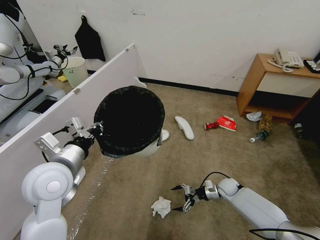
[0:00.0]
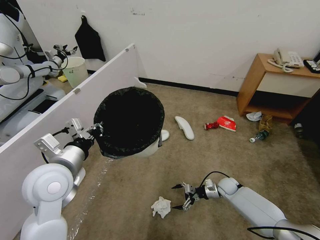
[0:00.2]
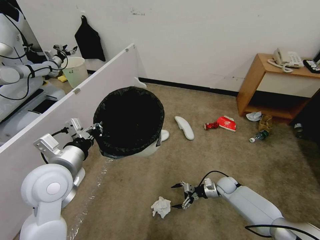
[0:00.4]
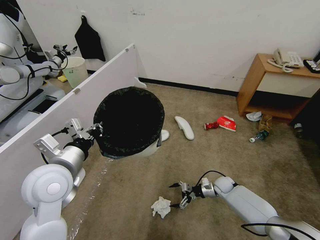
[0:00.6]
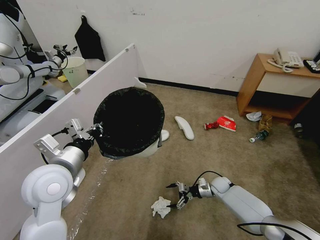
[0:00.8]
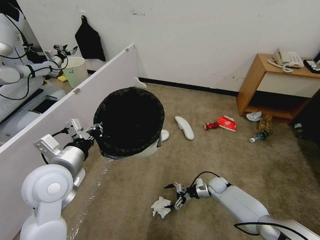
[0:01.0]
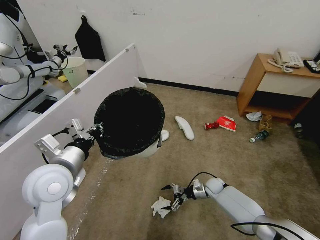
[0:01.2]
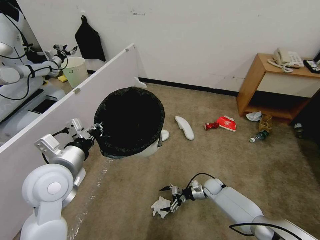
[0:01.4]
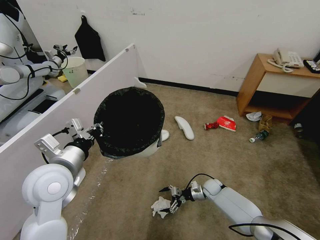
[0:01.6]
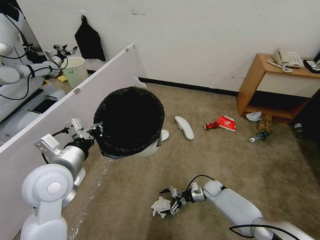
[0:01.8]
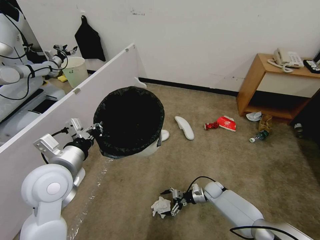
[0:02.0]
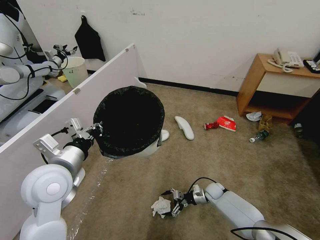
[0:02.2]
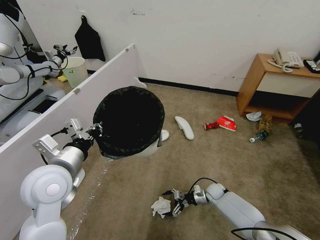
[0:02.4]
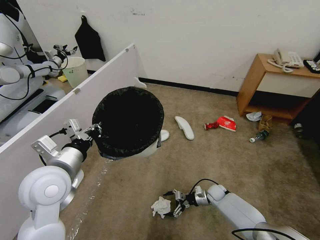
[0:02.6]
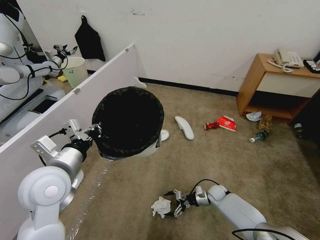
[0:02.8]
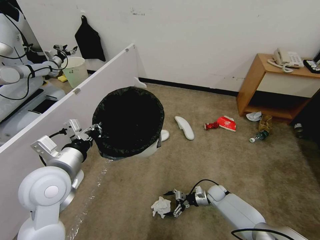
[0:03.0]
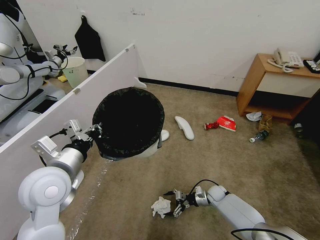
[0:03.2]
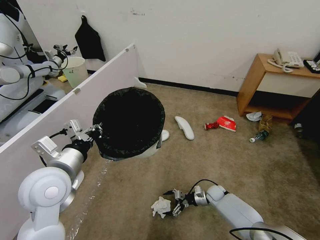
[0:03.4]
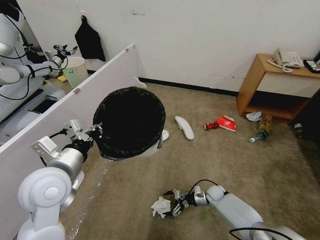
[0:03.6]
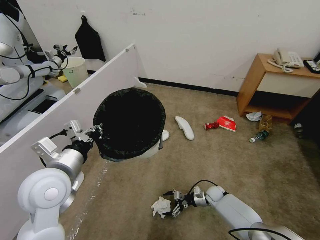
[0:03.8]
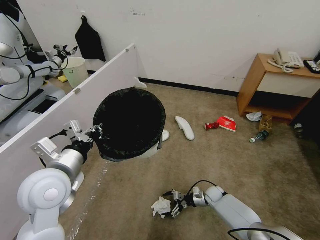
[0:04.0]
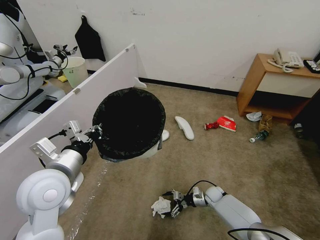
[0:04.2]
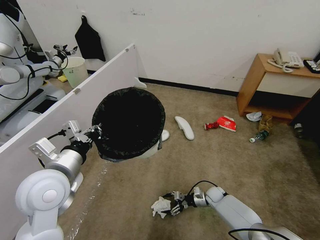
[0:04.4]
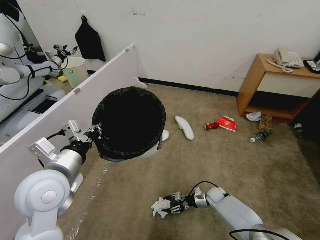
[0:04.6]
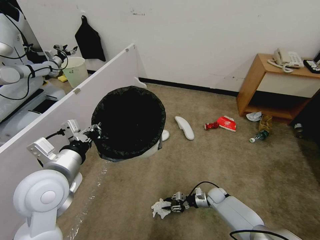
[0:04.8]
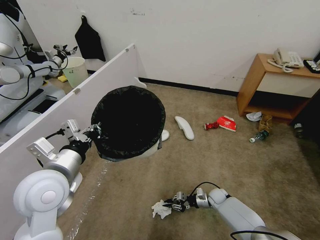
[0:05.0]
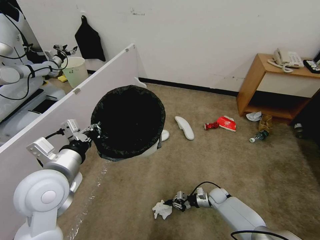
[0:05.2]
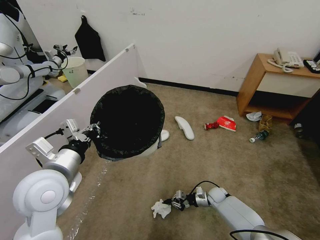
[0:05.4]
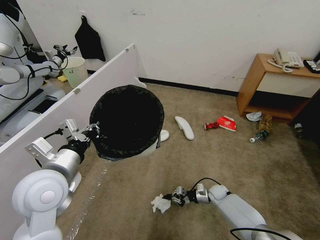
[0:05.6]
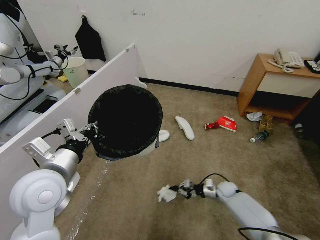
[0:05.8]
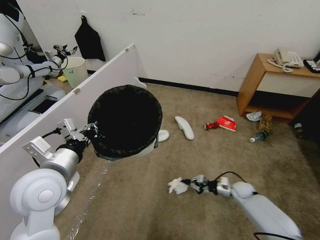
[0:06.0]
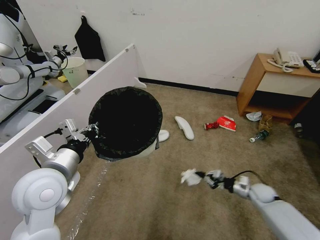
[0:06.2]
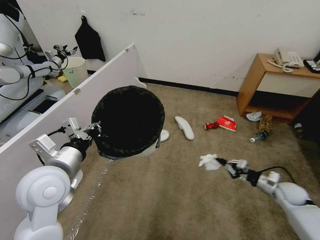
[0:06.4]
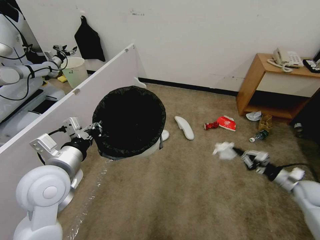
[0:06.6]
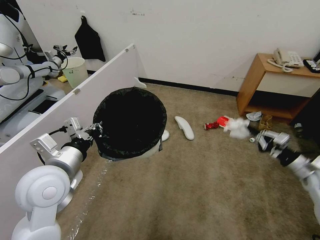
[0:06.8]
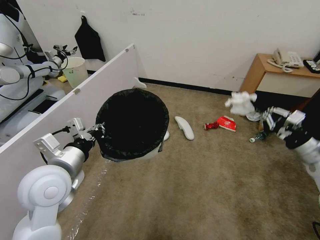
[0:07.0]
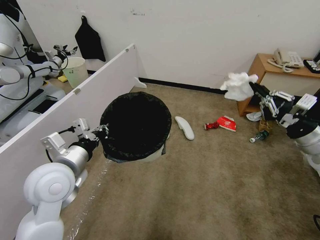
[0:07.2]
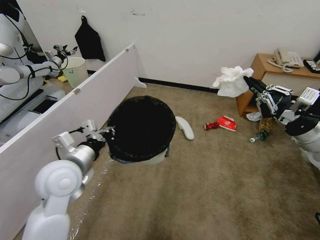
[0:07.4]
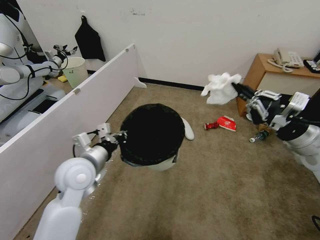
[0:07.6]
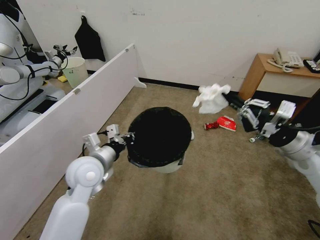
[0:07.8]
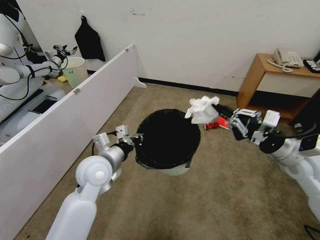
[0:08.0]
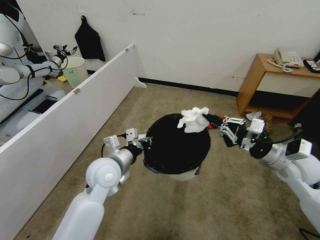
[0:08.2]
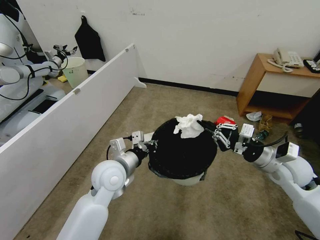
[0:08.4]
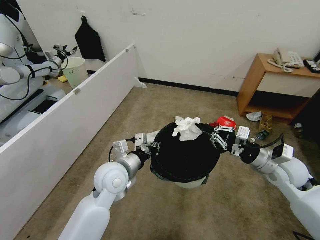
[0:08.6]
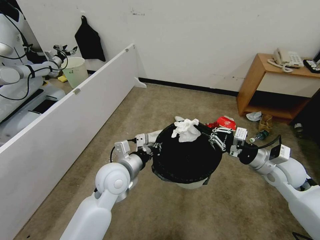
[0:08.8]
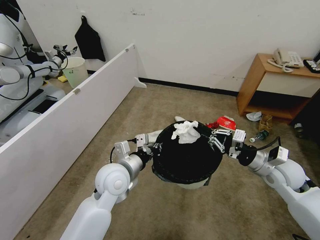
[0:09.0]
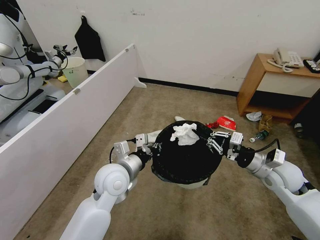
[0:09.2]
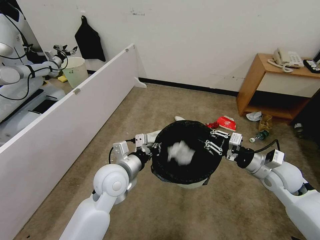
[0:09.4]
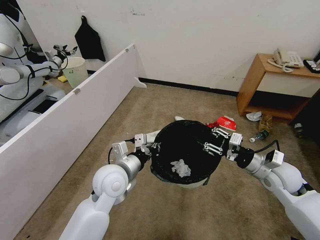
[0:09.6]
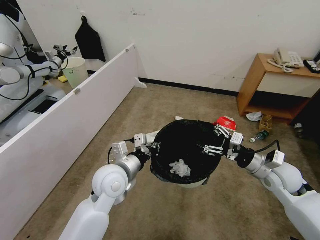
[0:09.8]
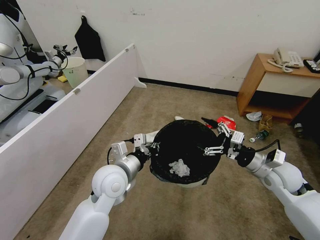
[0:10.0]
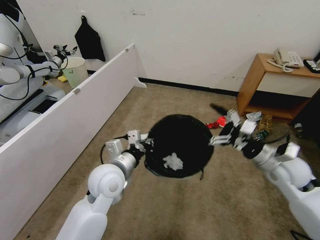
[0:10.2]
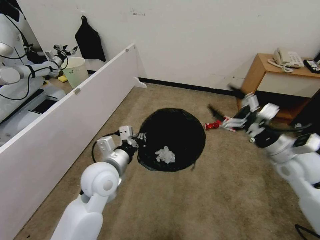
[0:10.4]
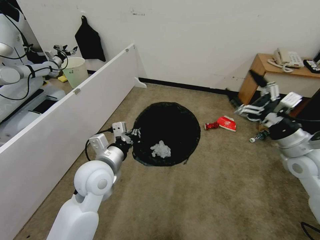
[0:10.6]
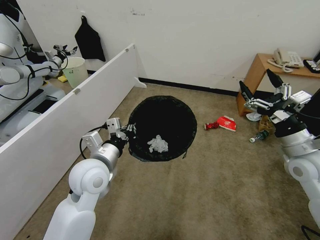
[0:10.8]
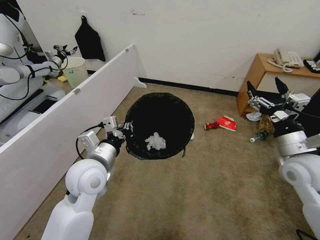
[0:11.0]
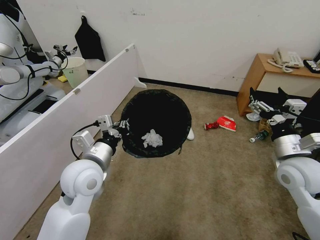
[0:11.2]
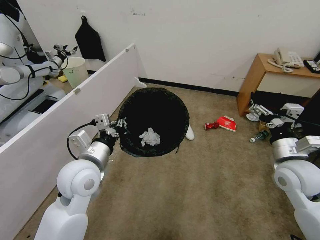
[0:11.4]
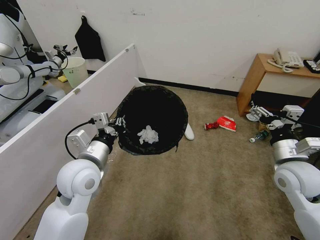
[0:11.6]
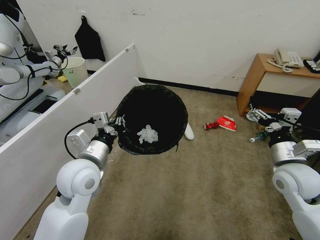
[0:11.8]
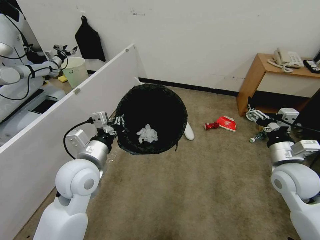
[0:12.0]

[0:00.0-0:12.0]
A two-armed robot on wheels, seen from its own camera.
Task of the whole recording: Pick up the trash bin, then pick up the garbage from the floor and place it into the trash bin.
0:00.0 to 0:01.6: The right gripper moves to the left, approximately 5 cm.
0:01.6 to 0:03.0: There are only small adjustments of the grippers.
0:03.0 to 0:04.4: The two grippers keep their place.
0:04.4 to 0:06.0: The right gripper shifts roughly 15 cm to the right and upward, and closes.
0:06.0 to 0:07.6: The left gripper travels forward by approximately 5 cm. Meanwhile the right gripper heads upward, covering about 40 cm.
0:07.6 to 0:09.0: The right gripper travels downward by some 10 cm. Meanwhile the left gripper heads to the right, covering some 10 cm.
0:09.0 to 0:10.4: The right gripper heads upward, covering roughly 5 cm, and opens.
0:10.4 to 0:12.0: The left gripper shifts by approximately 5 cm.

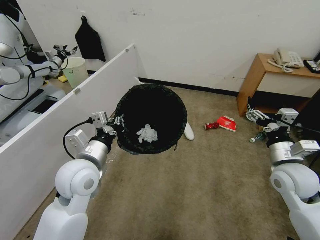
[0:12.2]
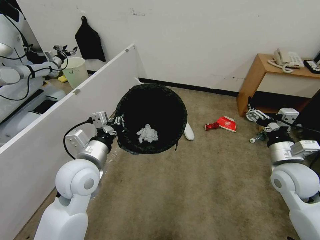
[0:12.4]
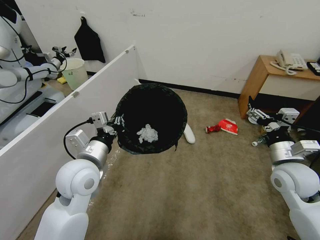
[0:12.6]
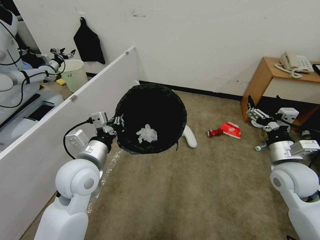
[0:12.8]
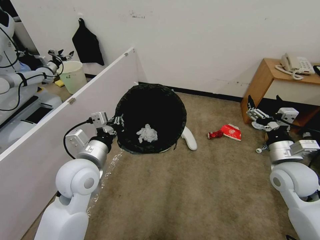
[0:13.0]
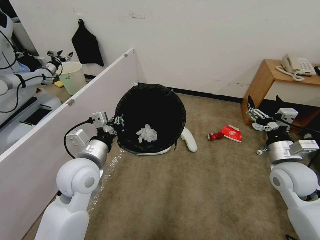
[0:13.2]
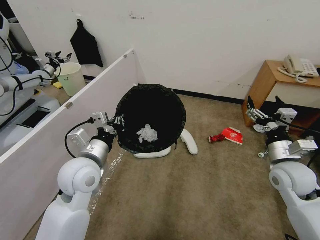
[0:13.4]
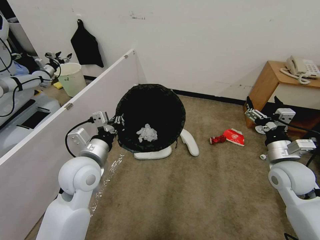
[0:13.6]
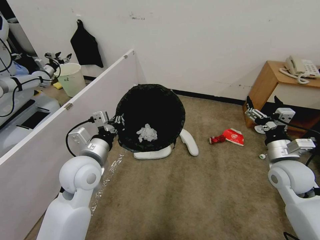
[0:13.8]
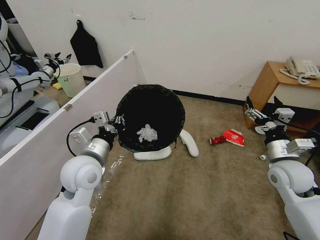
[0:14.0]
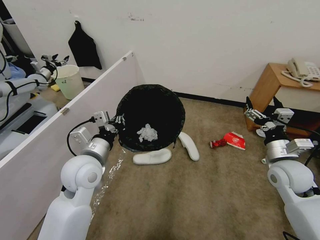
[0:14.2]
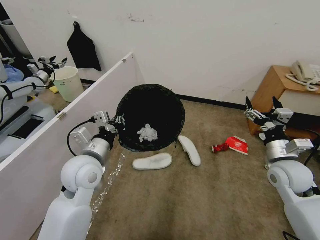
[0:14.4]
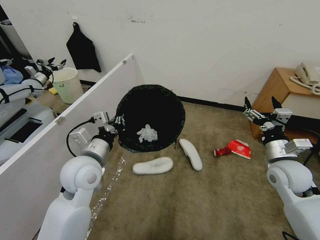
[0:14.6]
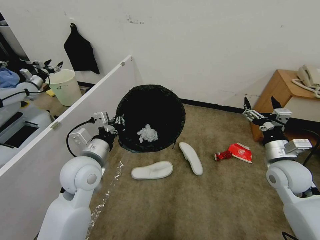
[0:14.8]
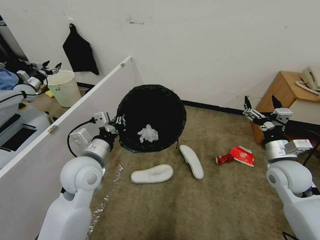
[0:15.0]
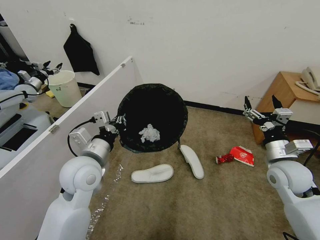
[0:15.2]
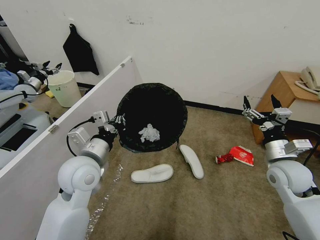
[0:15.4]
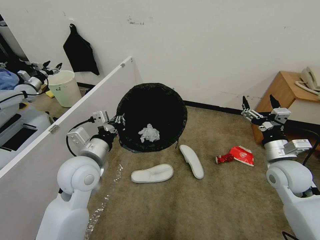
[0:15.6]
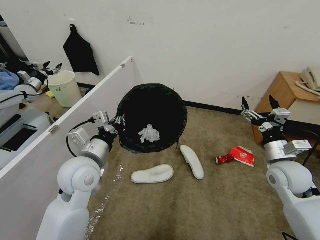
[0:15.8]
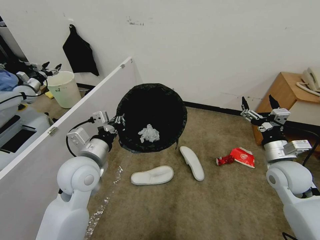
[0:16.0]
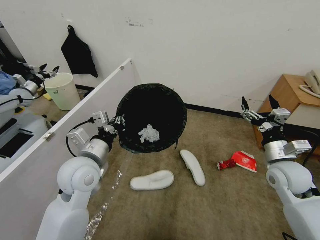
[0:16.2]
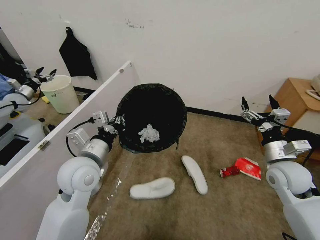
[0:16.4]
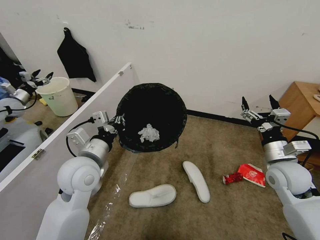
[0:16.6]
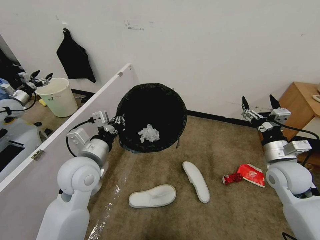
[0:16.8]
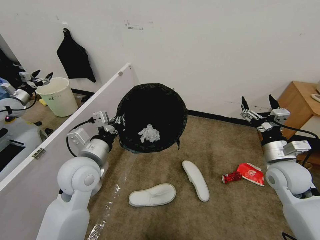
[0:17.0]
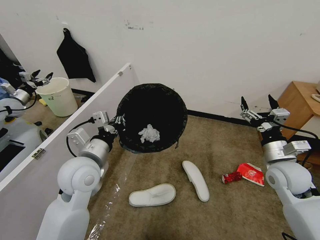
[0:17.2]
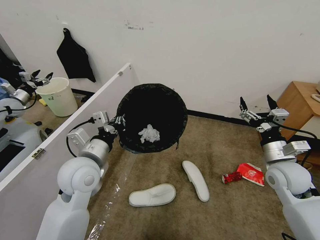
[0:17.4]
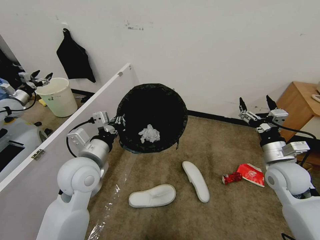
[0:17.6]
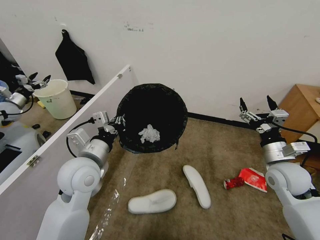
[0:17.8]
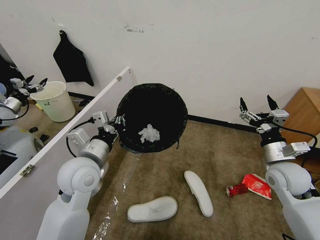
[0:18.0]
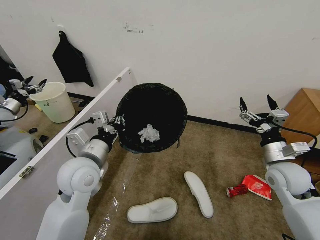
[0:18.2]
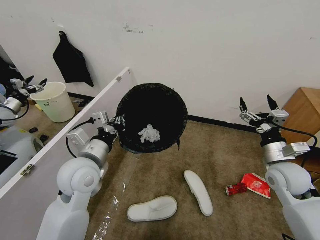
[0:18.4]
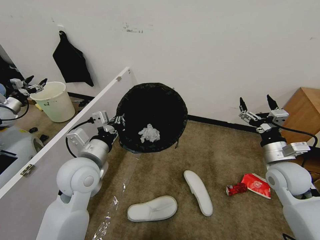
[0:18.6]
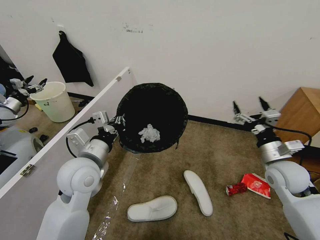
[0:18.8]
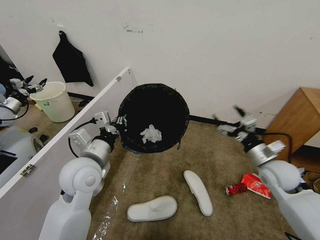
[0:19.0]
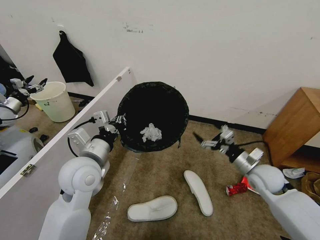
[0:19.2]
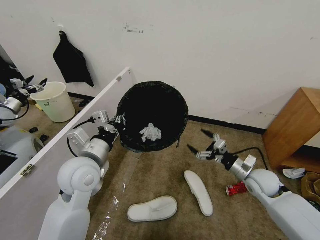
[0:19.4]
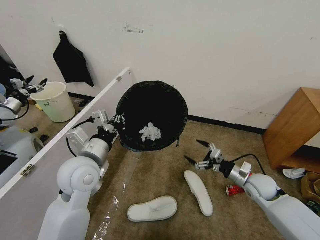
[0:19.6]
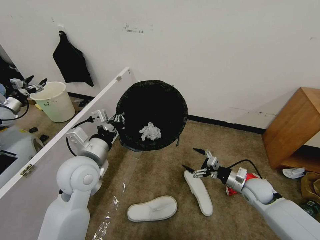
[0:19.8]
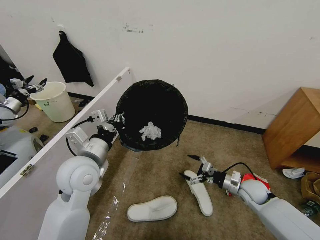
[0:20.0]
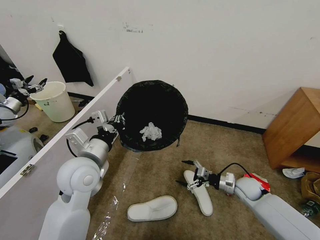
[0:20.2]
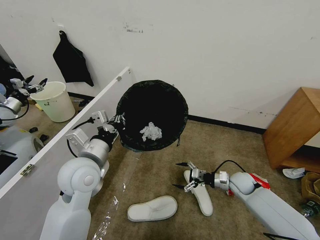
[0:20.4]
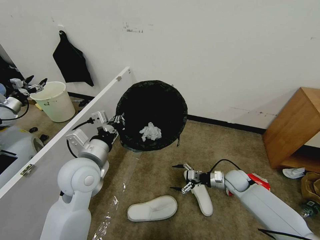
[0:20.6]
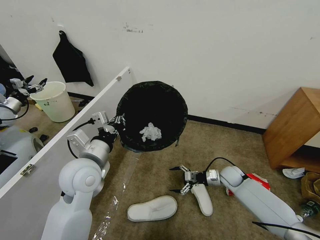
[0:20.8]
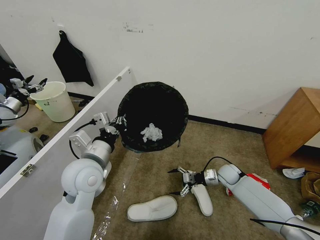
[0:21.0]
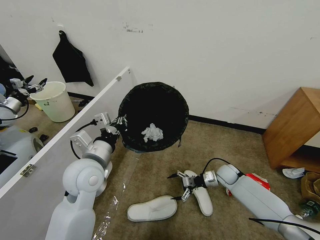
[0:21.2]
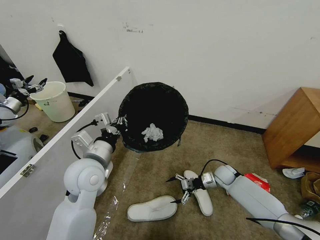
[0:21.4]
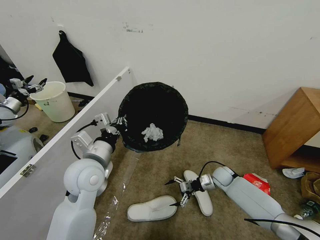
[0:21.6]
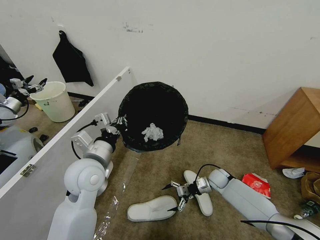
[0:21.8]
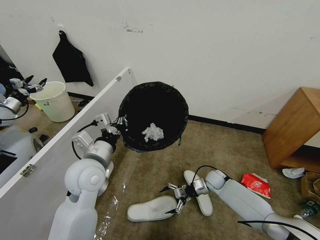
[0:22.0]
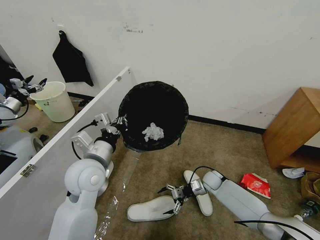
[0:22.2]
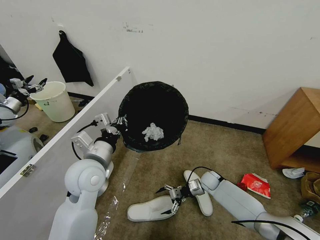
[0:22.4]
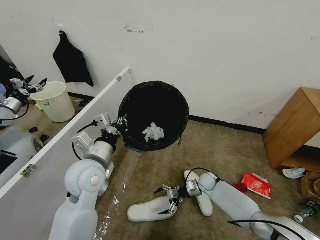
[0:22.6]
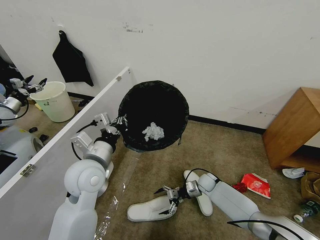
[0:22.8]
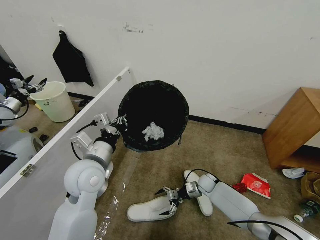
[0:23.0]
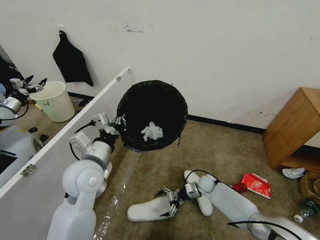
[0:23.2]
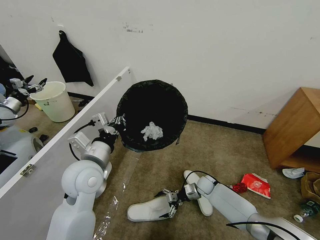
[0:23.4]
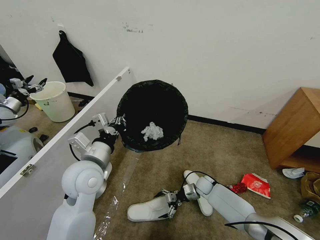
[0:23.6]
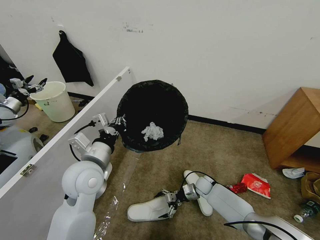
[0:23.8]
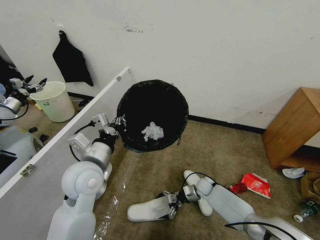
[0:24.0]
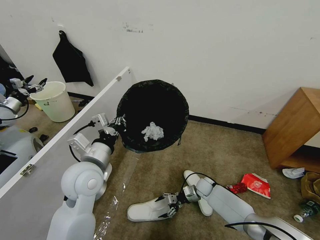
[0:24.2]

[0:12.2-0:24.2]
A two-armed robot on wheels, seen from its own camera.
Task of the whole recording: Pick up the trash bin, then pick up the garbage from the floor and place it into the trash bin.
0:16.6 to 0:18.2: The two grippers keep their place.
0:18.2 to 0:19.8: The right gripper moves downward, about 15 cm.
0:19.8 to 0:21.2: The right gripper is displaced forward, downward and to the left by about 15 cm.
0:21.2 to 0:22.6: The right gripper moves to the left and downward, some 10 cm.
0:22.6 to 0:24.2: There are only small adjustments of the grippers.
